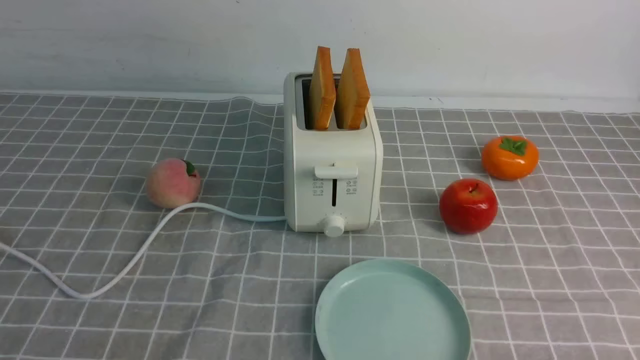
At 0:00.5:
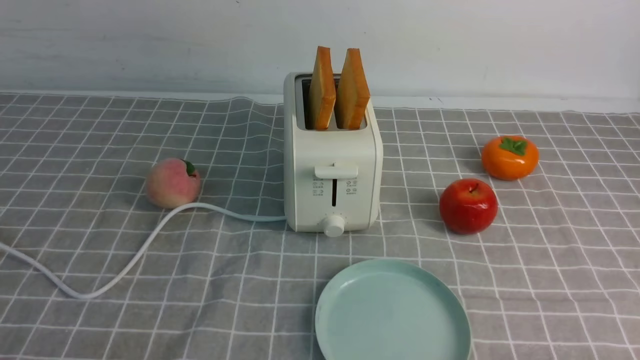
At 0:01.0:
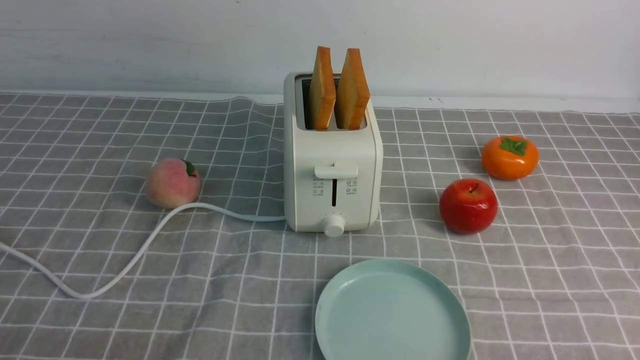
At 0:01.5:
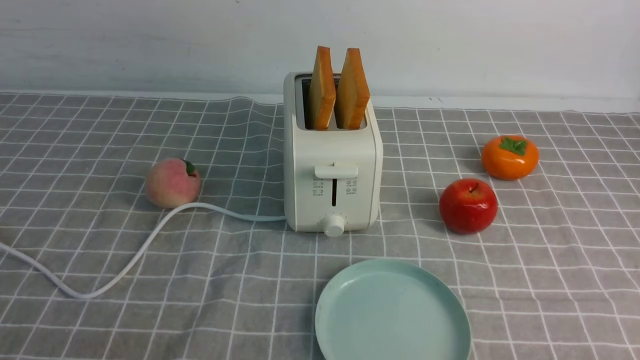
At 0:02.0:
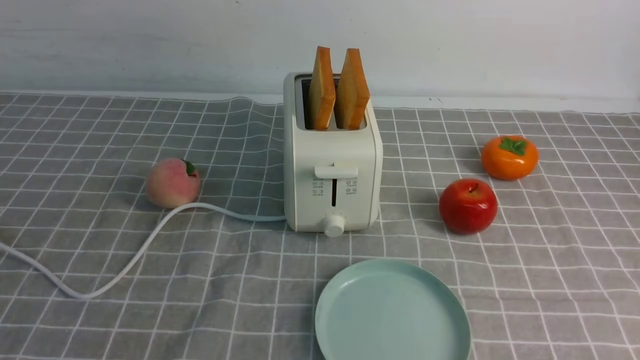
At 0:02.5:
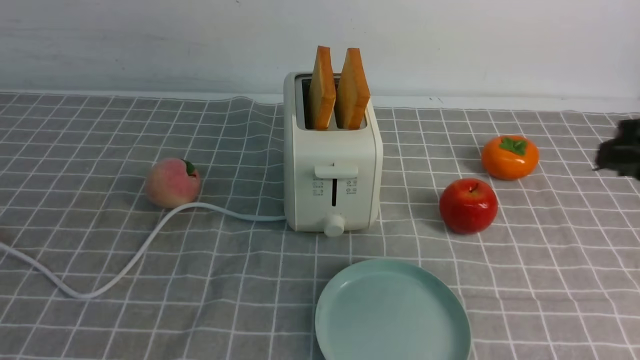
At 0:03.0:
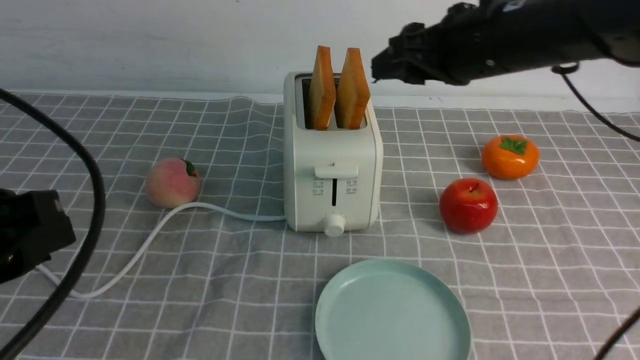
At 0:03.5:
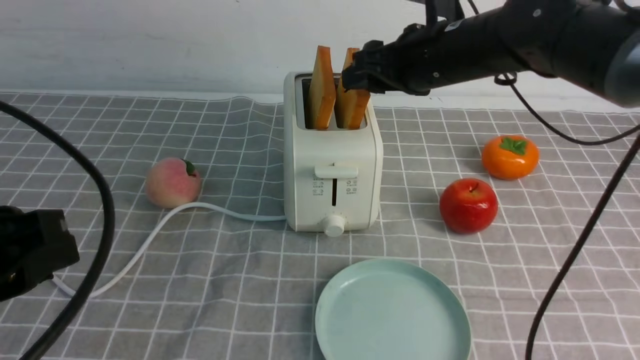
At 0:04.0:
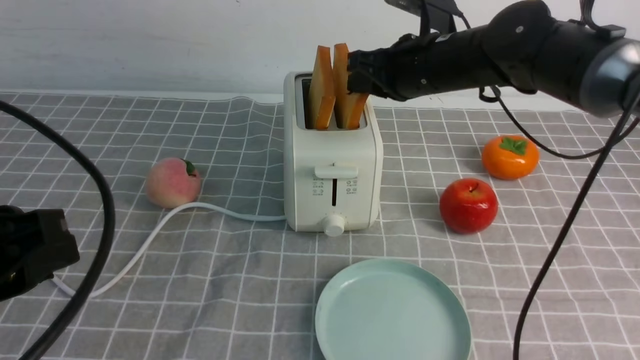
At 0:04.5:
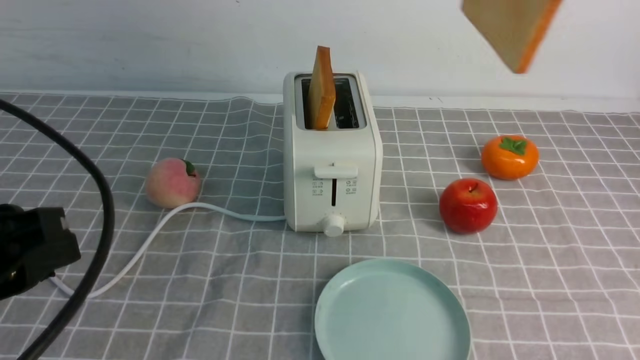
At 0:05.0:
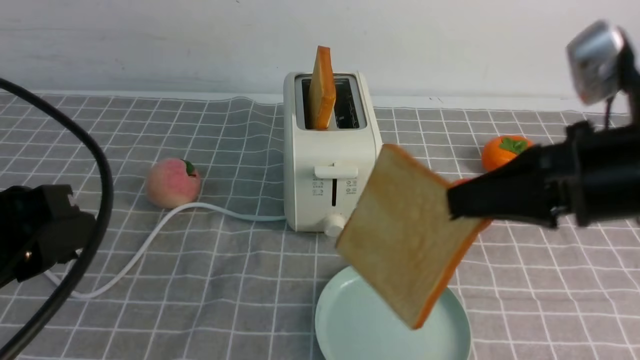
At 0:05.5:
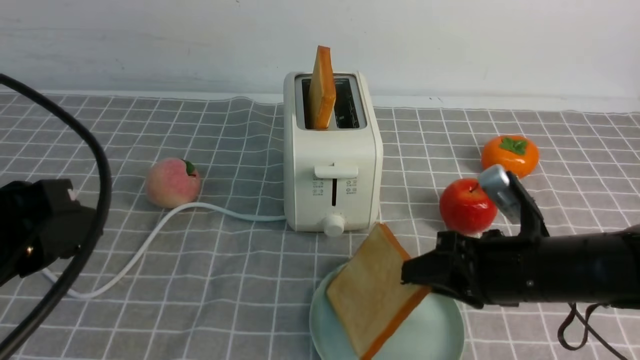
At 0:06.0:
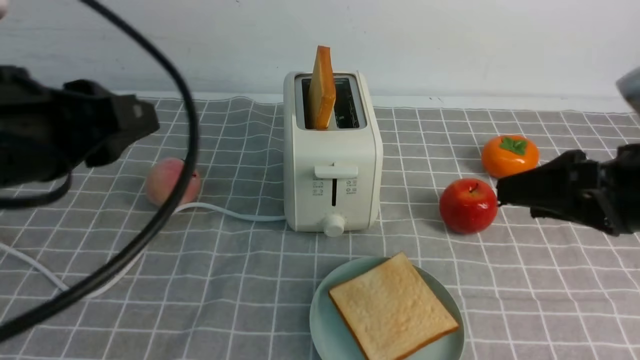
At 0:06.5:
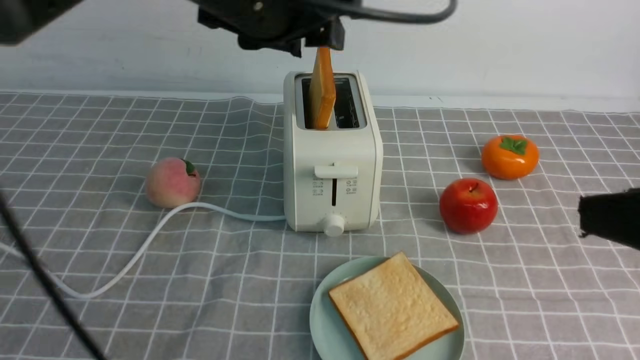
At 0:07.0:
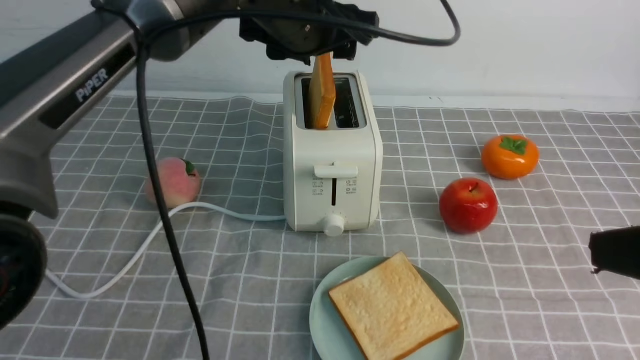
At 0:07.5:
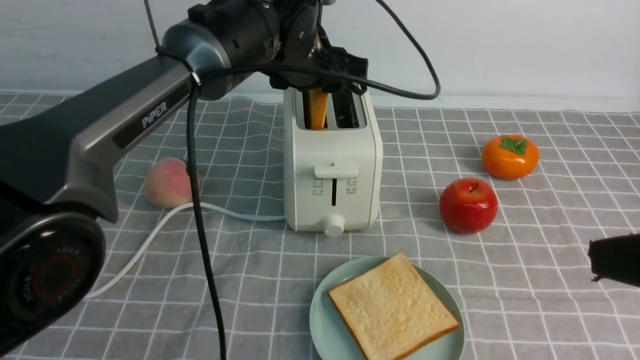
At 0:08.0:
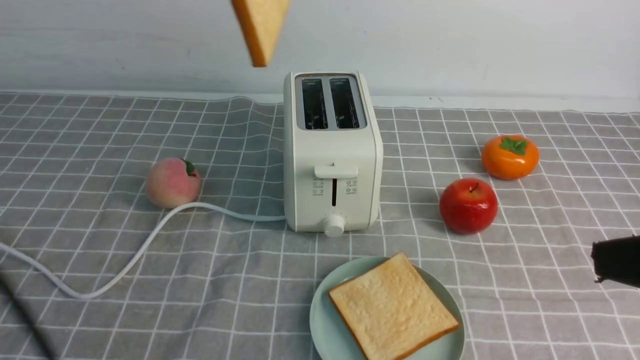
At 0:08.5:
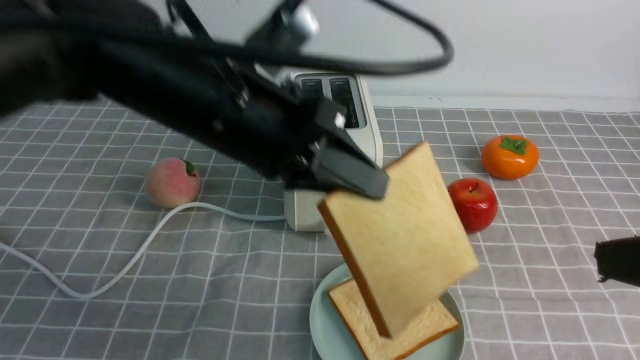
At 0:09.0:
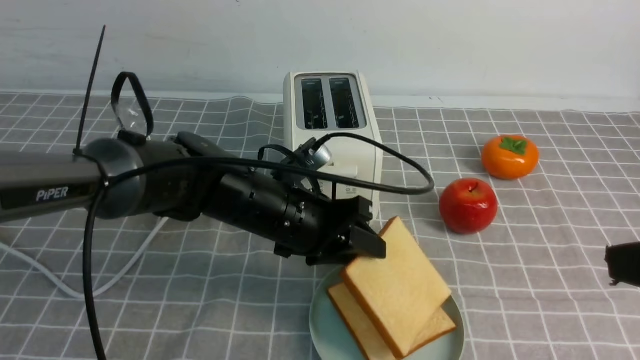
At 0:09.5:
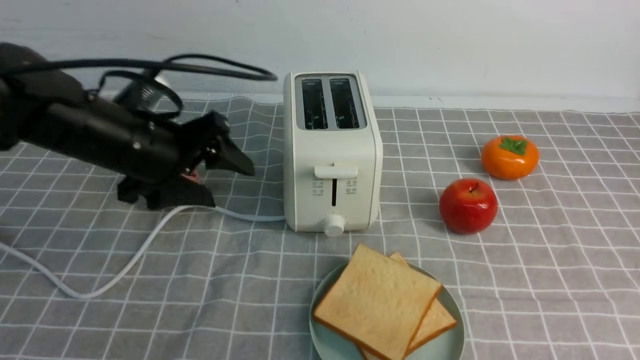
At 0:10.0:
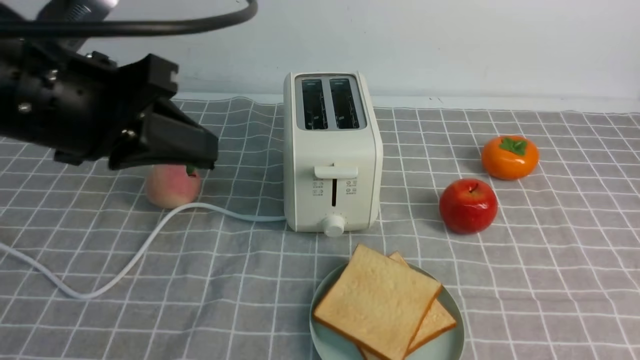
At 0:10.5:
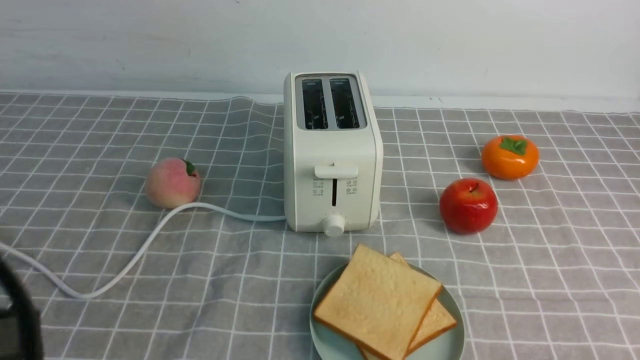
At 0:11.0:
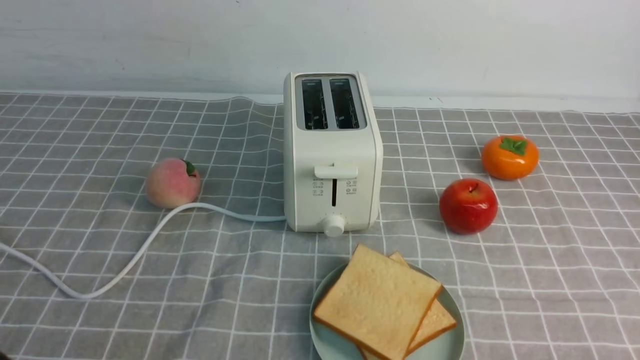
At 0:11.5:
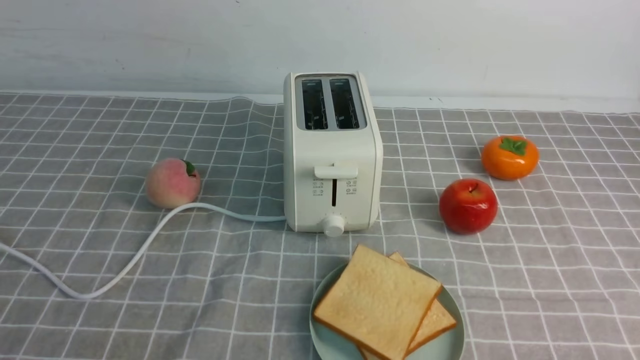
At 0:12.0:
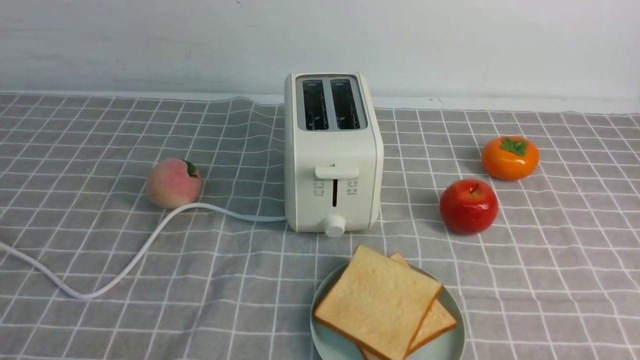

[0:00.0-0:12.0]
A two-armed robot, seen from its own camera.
Task of the whole recording: take toasted bread from bread machine on grey coffee table place on plate.
Step, 0:00.0 to 0:04.0: use the right arm to take out a slice of bread.
Step, 0:04.5 to 0:05.5: use the right arm to put a slice of bread into the plate.
Step, 0:06.0 to 0:07.5: use the left arm to take out a slice of bread.
Step, 0:08.5 to 0:09.0: use the left arm to put a slice of bread into the empty plate.
0:02.0 to 0:04.0: The right gripper heads forward and to the left, covering roughly 40 cm. Meanwhile the left gripper goes approximately 10 cm forward and downward.
0:04.0 to 0:06.0: The left gripper changes place by about 5 cm. Meanwhile the right gripper moves up and down over approximately 25 cm, changing direction 2 times, and opens.
0:06.0 to 0:08.0: The right gripper travels backward and upward by about 15 cm. Meanwhile the left gripper goes about 20 cm forward and to the right, and opens, then closes once more.
0:08.0 to 0:10.0: The left gripper moves backward and to the left, approximately 15 cm, moves some 25 cm downward and comes back, and opens, then closes again. The right gripper moves downward, approximately 5 cm, and closes its fingers.
0:10.0 to 0:12.0: The left gripper moves backward and downward, about 30 cm.

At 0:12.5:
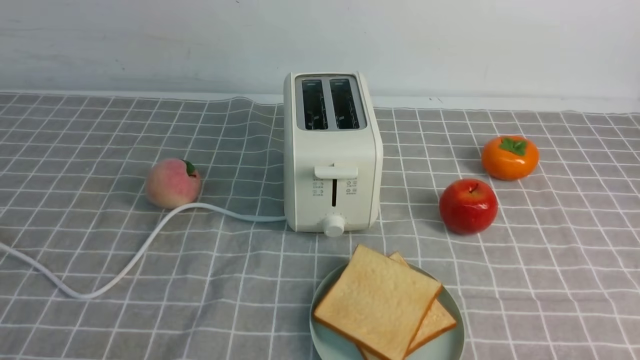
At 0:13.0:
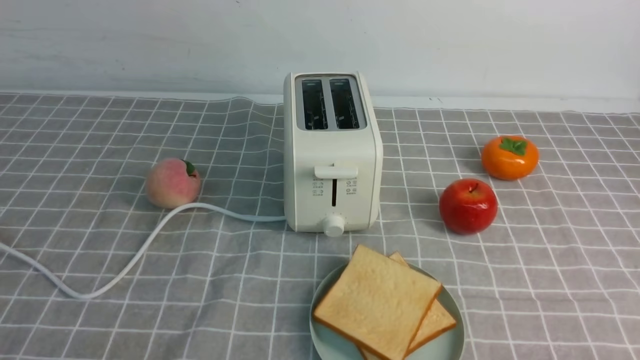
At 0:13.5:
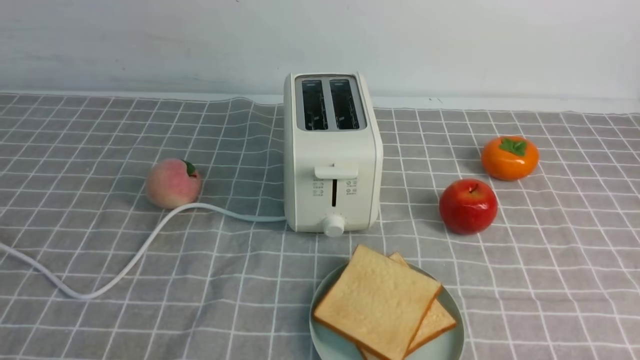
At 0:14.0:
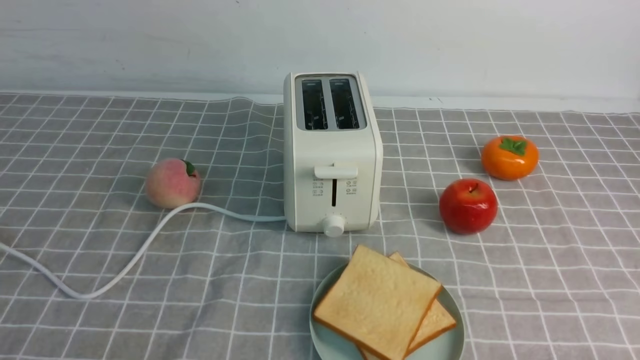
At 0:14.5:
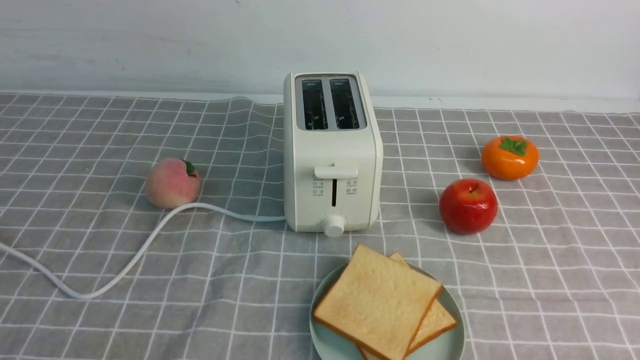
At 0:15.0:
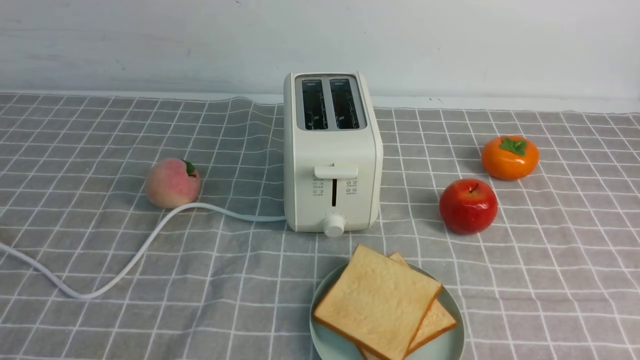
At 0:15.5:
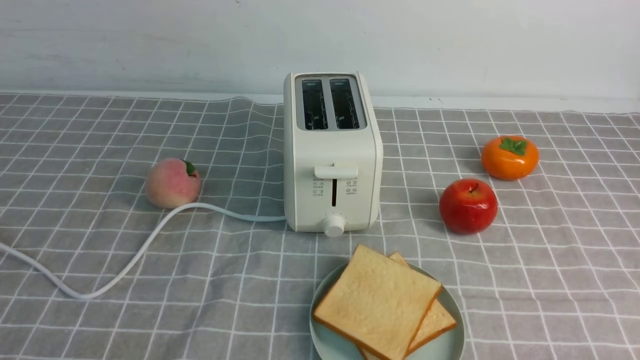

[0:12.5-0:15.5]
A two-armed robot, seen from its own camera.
Task of the whole recording: take toasted bread from bread machine on grey coffee table place on plate.
0:14.0 to 0:15.5: Both grippers stay put.

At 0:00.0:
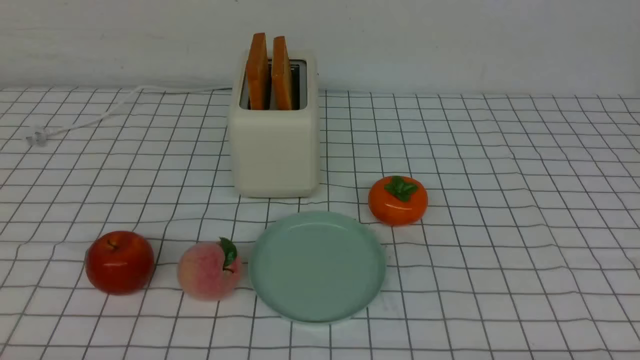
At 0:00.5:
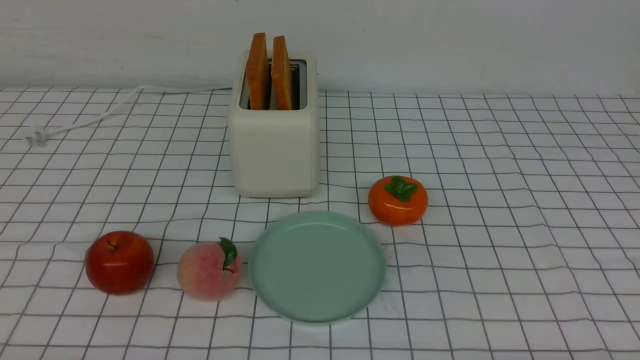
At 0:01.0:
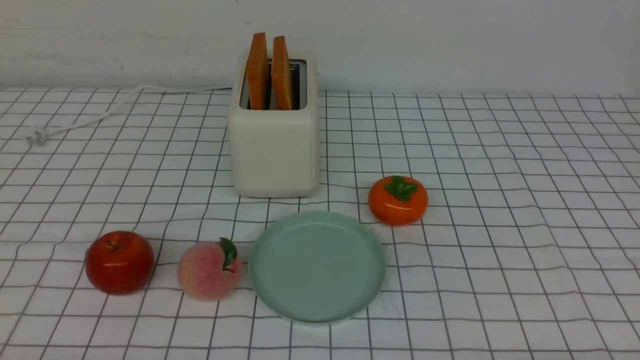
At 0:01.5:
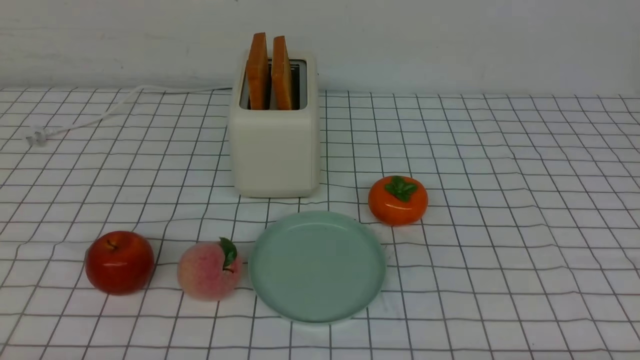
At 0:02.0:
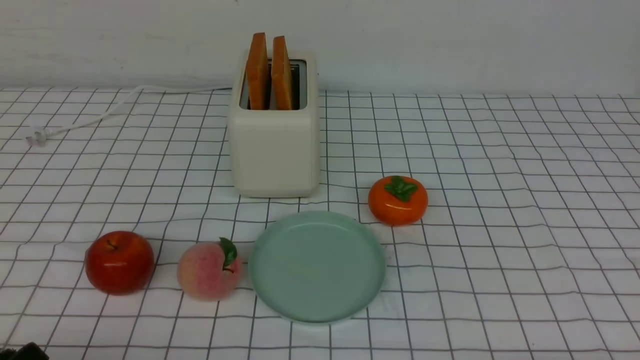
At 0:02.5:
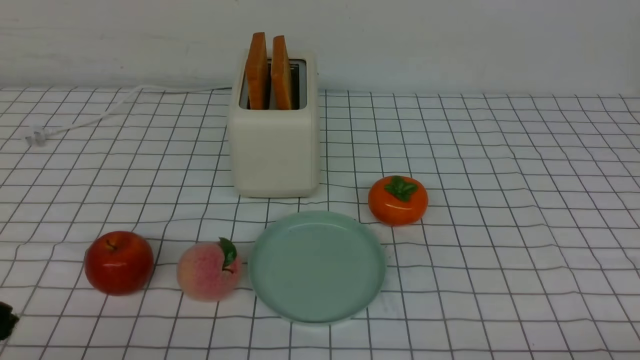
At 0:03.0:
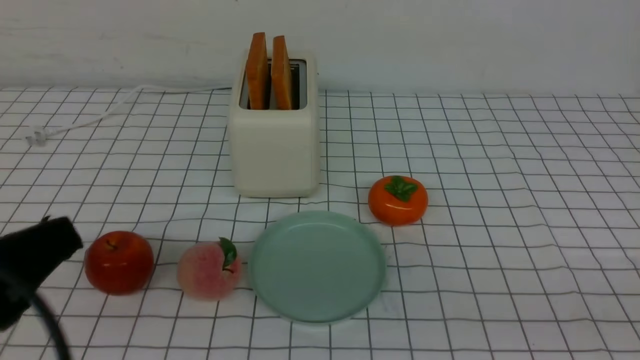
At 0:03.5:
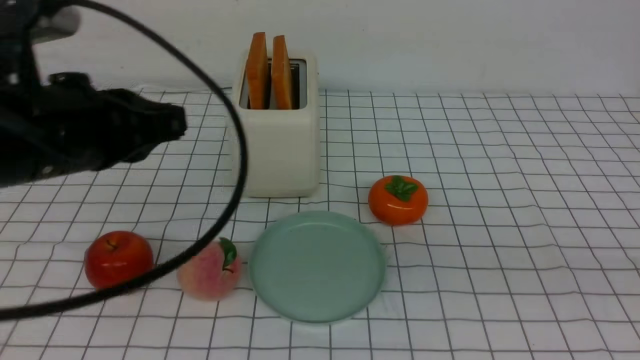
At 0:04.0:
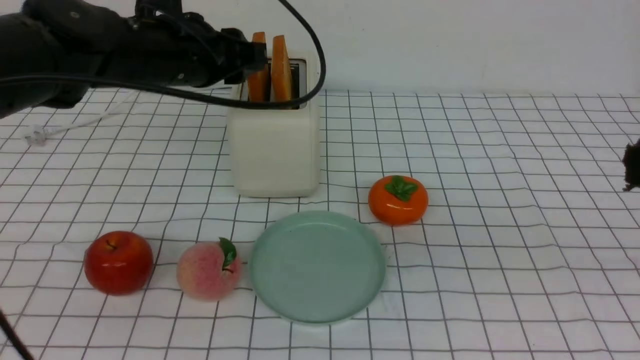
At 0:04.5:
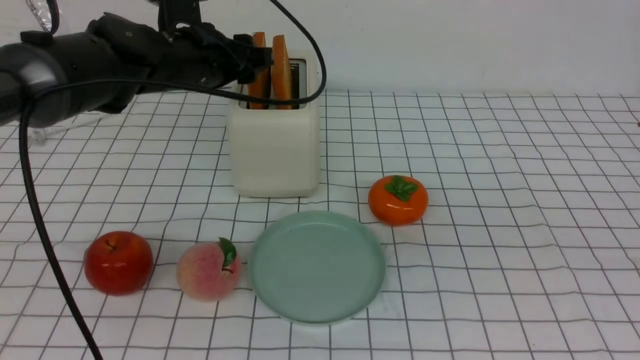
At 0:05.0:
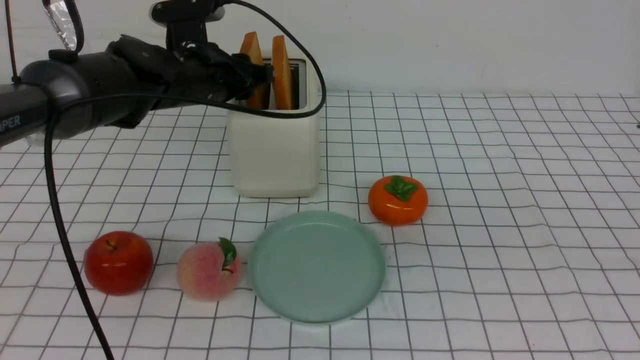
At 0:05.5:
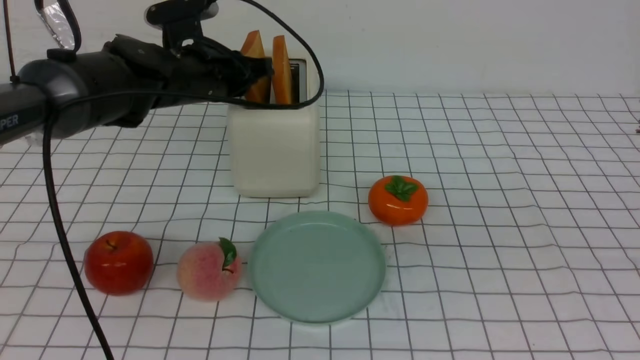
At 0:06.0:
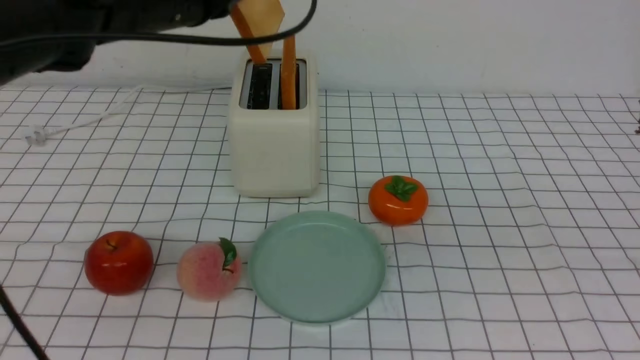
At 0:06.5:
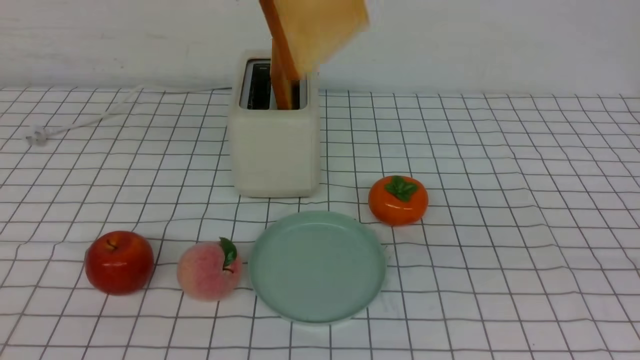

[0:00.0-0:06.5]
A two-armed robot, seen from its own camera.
Task of the whole recording: take toasted bread from bread machine on white checkered table place on plate.
Step, 0:00.0 to 0:05.5: use the left arm to take out a slice of bread.
0:02.0 to 0:04.5: The right gripper is displaced upward by some 25 cm, and closes its fingers. Meanwhile the left gripper shifts approximately 40 cm forward, and closes, then reopens.
0:04.5 to 0:06.5: The left gripper travels upward and backward by some 20 cm, and closes.
